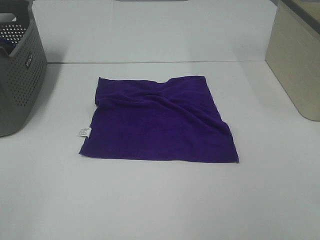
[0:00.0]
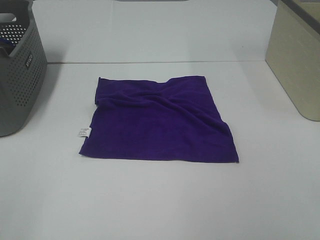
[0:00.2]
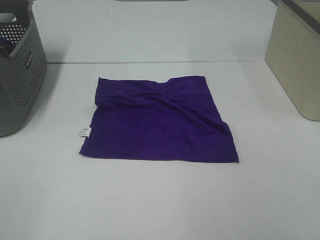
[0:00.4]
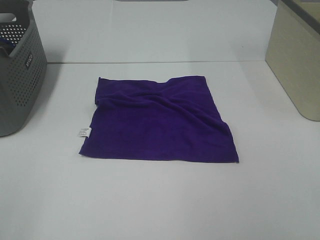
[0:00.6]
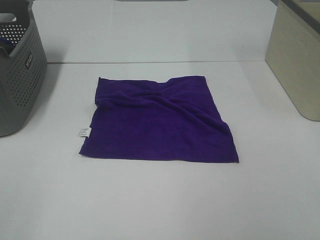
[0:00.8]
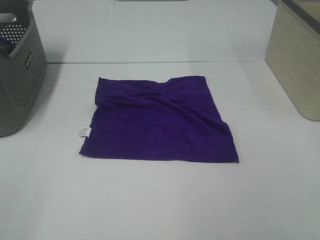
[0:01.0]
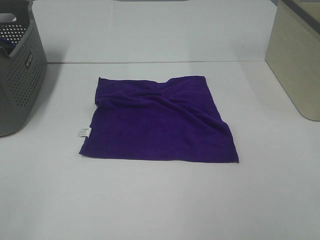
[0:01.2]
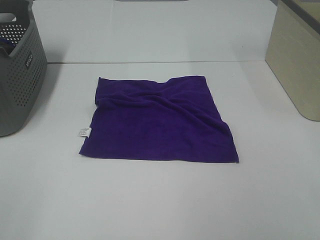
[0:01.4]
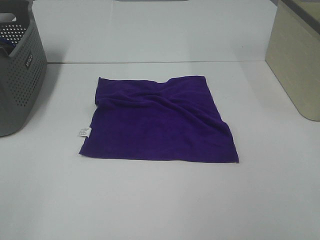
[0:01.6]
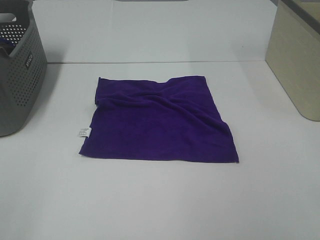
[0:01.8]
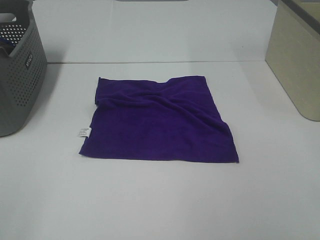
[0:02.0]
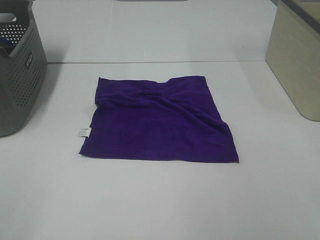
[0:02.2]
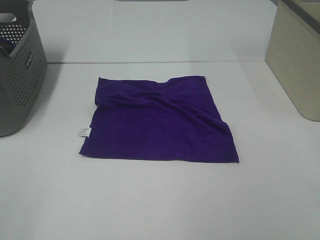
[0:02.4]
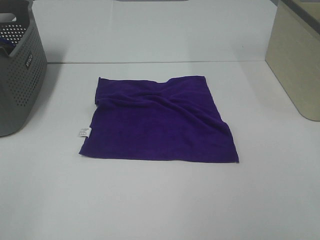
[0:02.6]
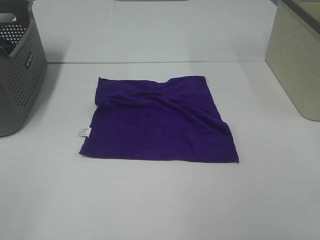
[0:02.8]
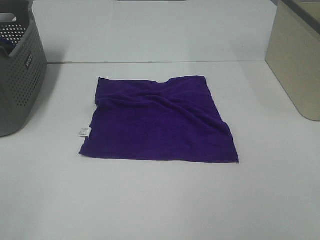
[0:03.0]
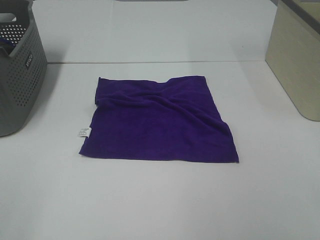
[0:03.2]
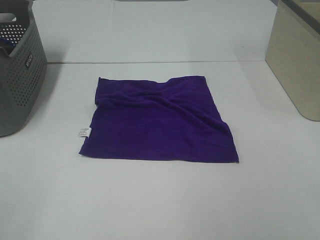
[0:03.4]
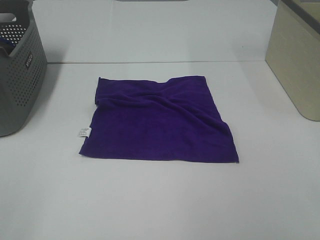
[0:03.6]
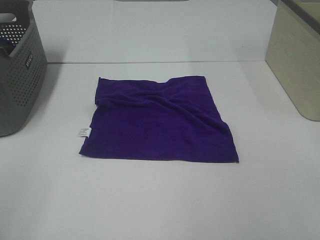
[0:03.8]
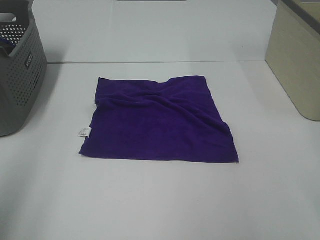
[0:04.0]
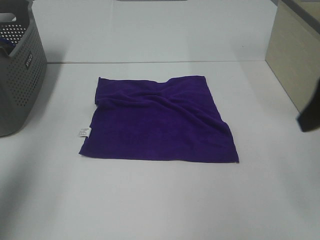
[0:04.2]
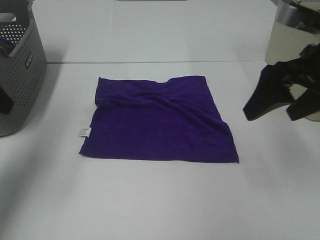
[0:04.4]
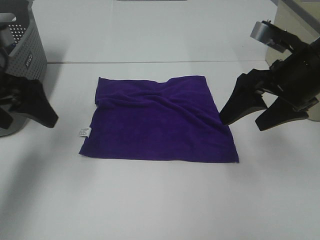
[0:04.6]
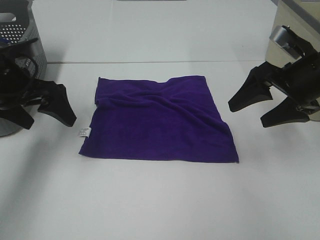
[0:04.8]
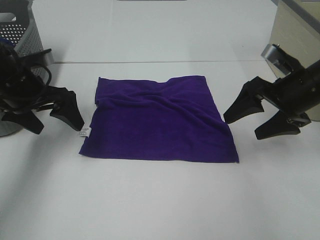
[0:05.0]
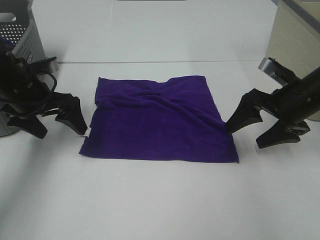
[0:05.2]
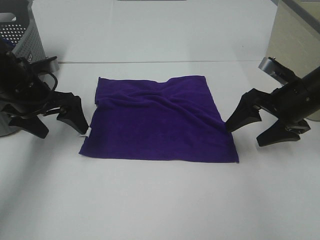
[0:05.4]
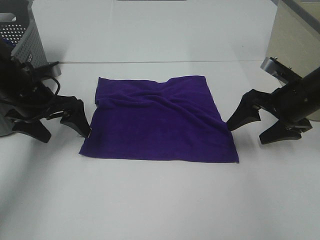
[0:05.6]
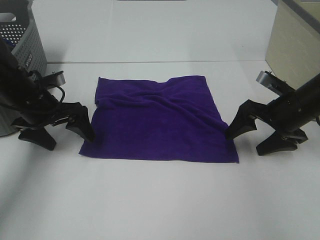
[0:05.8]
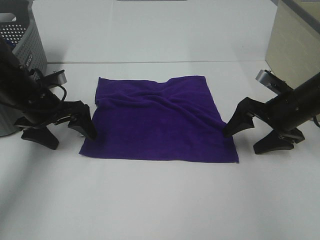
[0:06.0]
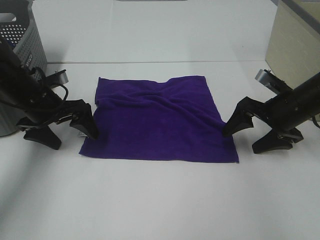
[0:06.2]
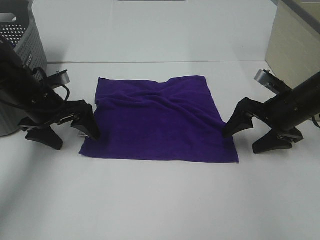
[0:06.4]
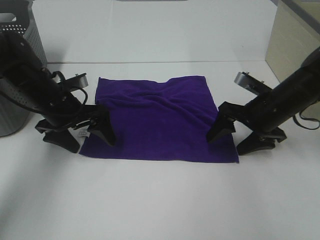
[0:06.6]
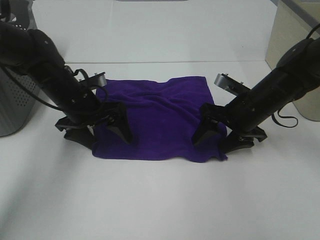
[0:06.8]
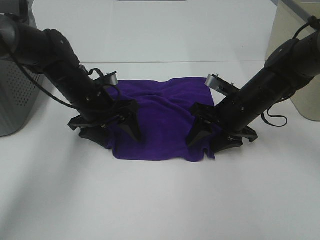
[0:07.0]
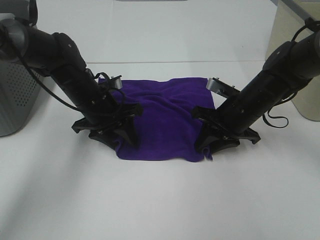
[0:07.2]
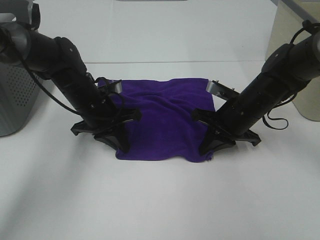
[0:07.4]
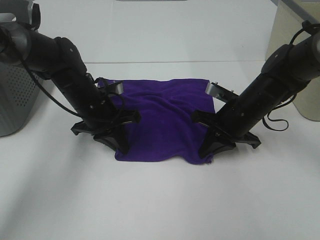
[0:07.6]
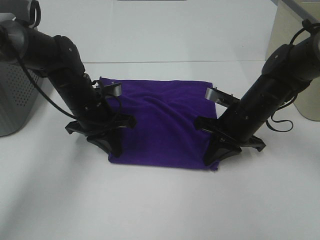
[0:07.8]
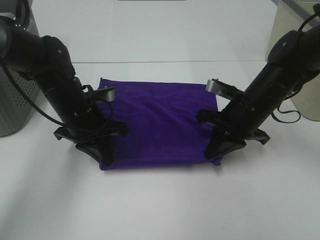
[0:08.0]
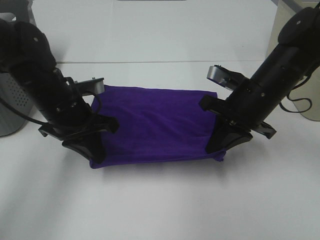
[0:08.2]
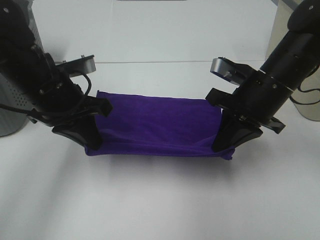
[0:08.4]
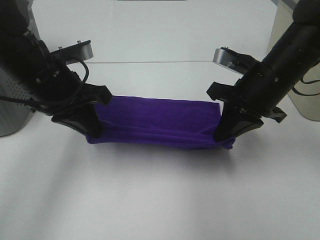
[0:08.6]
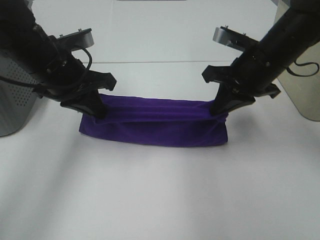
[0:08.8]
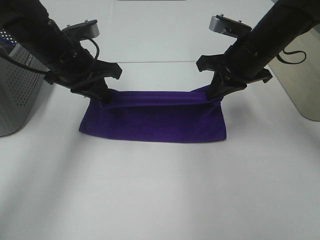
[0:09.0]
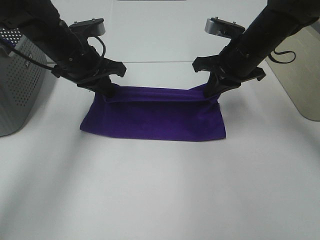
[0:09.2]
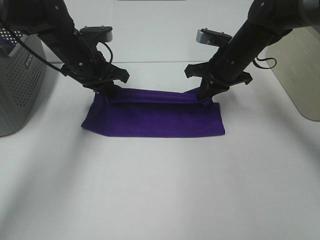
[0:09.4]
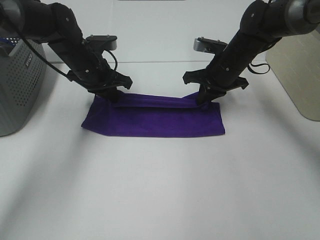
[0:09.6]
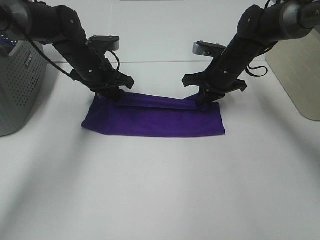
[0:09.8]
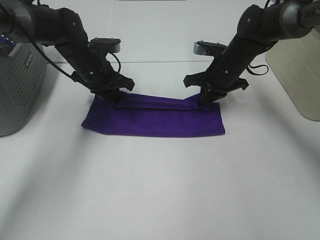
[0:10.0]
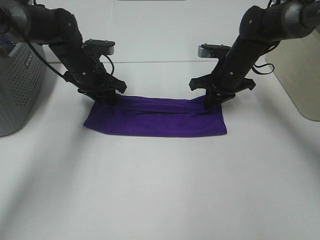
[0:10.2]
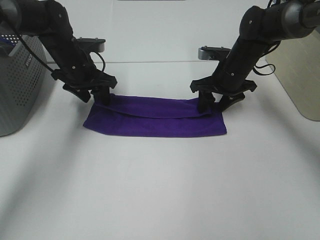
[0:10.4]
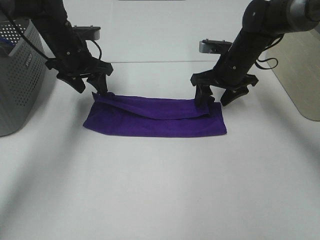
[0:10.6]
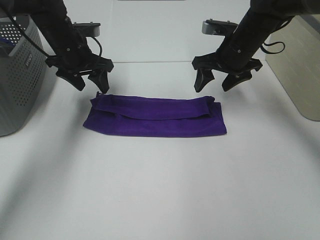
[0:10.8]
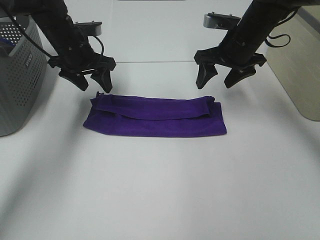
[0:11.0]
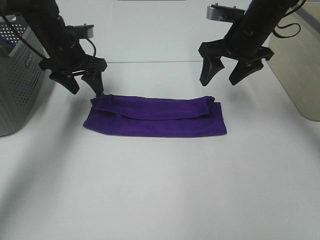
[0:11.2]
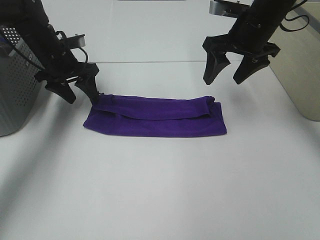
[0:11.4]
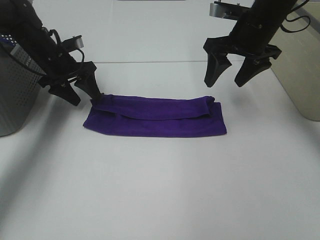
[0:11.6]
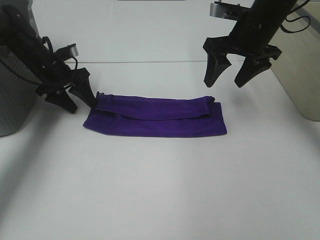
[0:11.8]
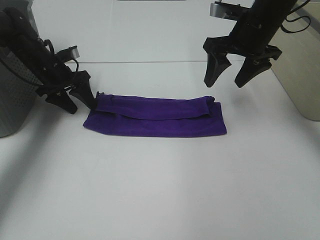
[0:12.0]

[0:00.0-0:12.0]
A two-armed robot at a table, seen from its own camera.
Task of the whole recording: Fold towels.
Step, 0:00.0 to 0:07.4: Left hand: grab the bottom left corner of purple towel.
Step, 0:00.0 to 0:07.4: Right hand: grab the bottom right corner of purple towel.
Step, 0:07.6 to 0:10.2: Left hand: fold the purple towel up.
Step, 0:07.6 to 0:10.2: Right hand: fold the purple towel up.
0:00.0 to 0:03.0: Neither gripper changes place.
0:03.0 to 0:04.4: Both grippers travel together forward, approximately 25 cm.
0:04.4 to 0:06.0: The grippers both shift downward and forward by roughly 20 cm.
0:06.0 to 0:07.6: The right gripper is displaced to the left by roughly 10 cm, and closes, while the left gripper goes about 10 cm to the right, and closes its fingers.
0:07.6 to 0:09.0: The grippers both shift upward by approximately 10 cm.
0:09.0 to 0:10.4: The left gripper shifts some 10 cm forward and downward, and opens up. Meanwhile the right gripper moves downward and forward, roughly 10 cm, and opens its fingers.
0:10.4 to 0:12.0: The right gripper travels upward by approximately 10 cm; the left gripper shifts about 5 cm to the left.

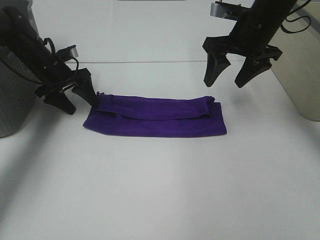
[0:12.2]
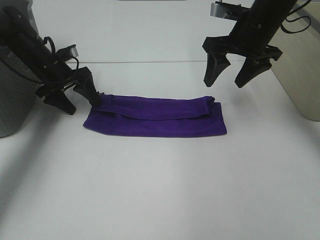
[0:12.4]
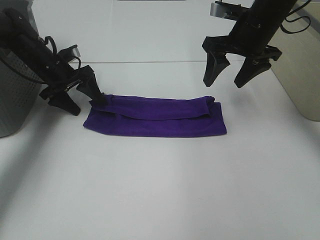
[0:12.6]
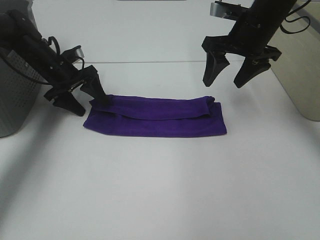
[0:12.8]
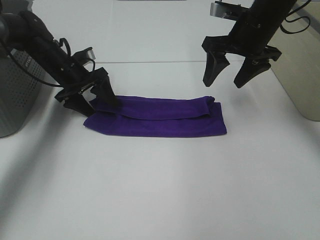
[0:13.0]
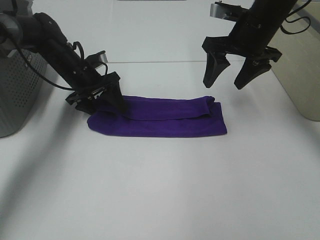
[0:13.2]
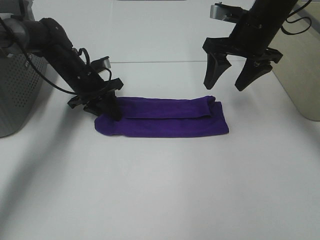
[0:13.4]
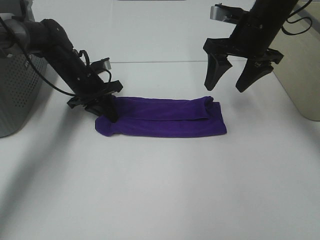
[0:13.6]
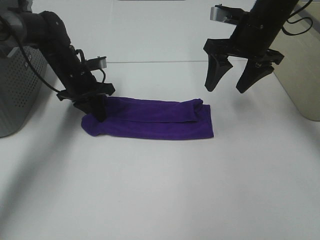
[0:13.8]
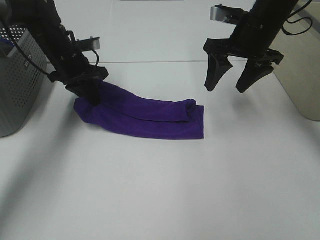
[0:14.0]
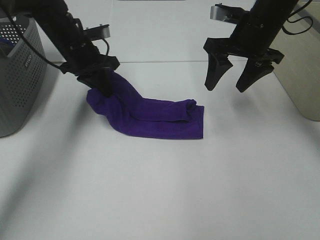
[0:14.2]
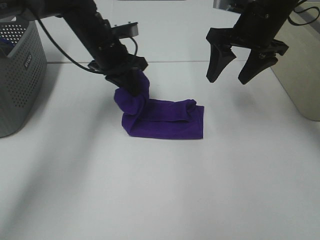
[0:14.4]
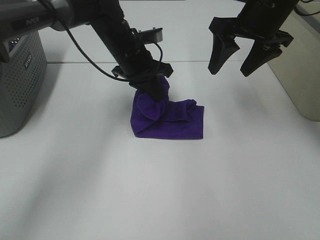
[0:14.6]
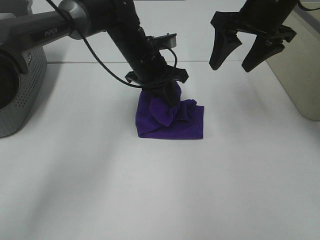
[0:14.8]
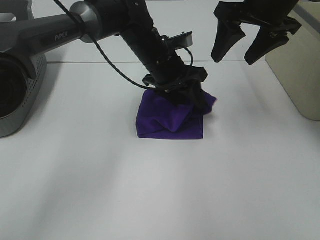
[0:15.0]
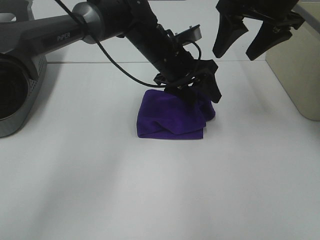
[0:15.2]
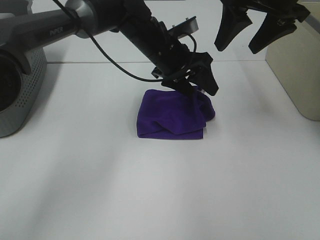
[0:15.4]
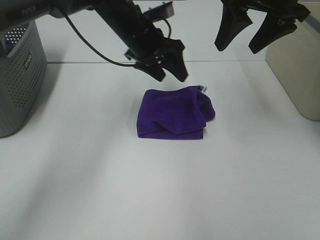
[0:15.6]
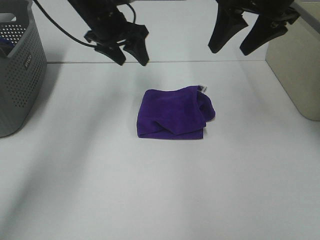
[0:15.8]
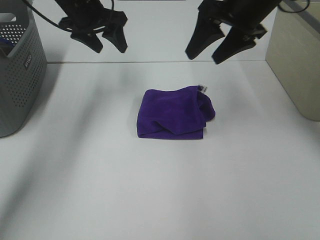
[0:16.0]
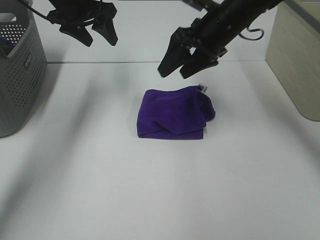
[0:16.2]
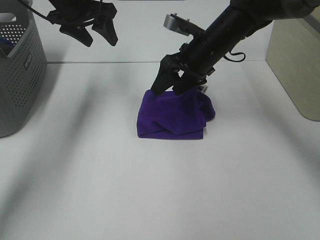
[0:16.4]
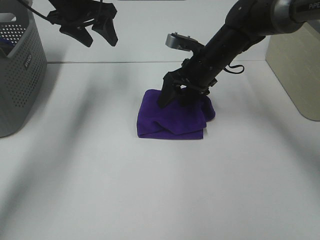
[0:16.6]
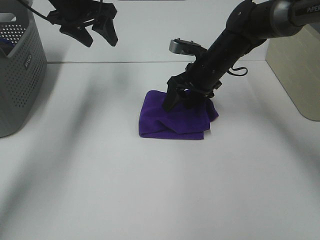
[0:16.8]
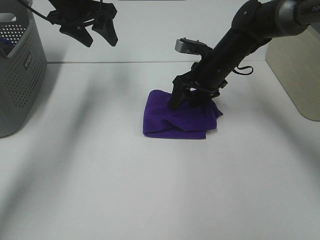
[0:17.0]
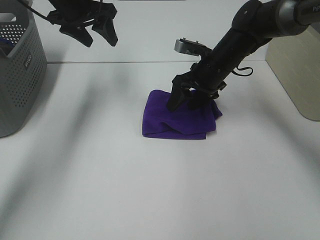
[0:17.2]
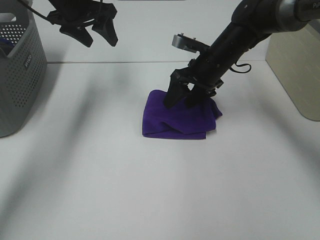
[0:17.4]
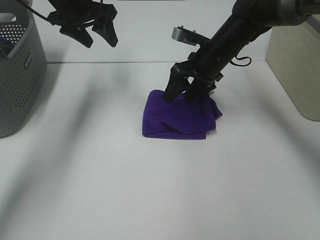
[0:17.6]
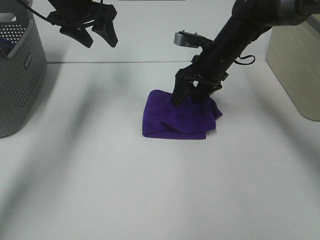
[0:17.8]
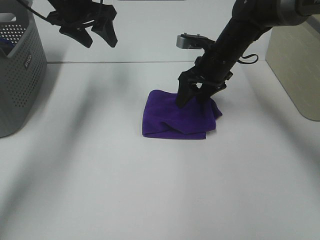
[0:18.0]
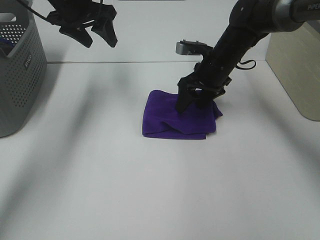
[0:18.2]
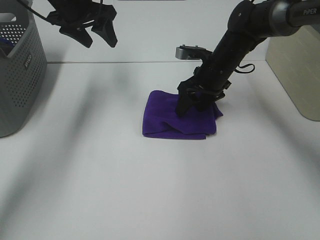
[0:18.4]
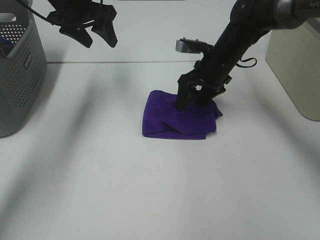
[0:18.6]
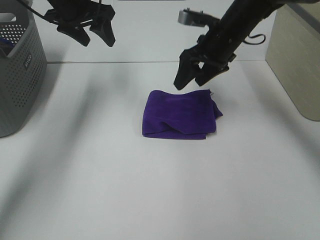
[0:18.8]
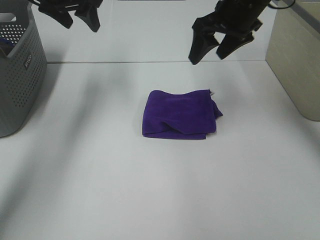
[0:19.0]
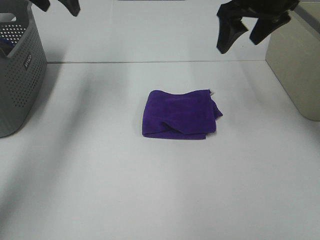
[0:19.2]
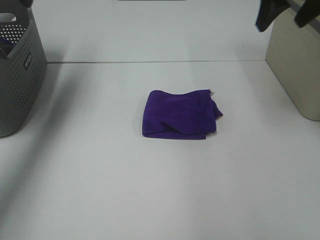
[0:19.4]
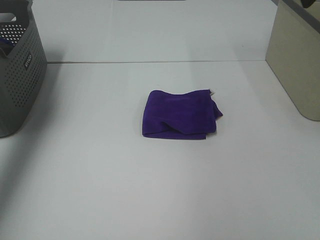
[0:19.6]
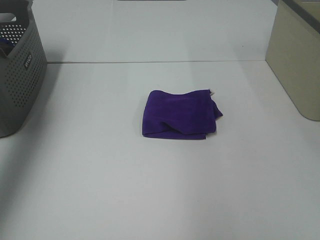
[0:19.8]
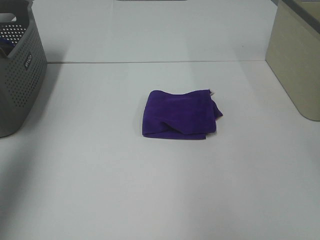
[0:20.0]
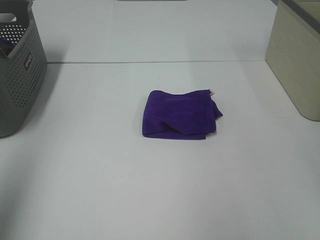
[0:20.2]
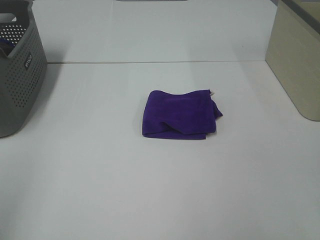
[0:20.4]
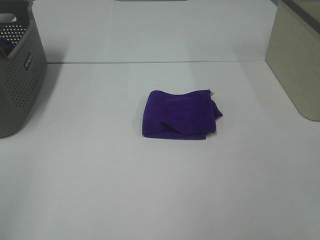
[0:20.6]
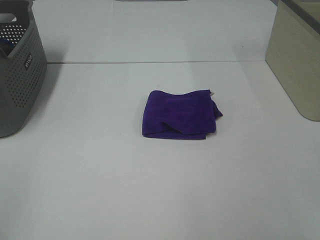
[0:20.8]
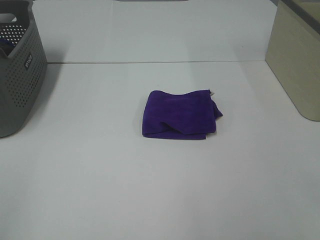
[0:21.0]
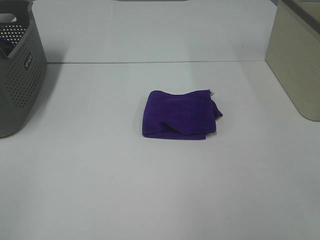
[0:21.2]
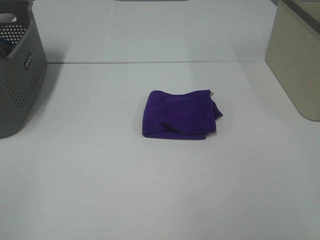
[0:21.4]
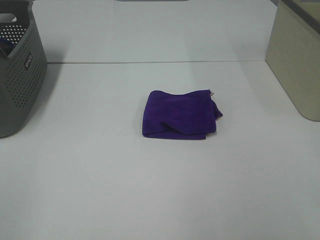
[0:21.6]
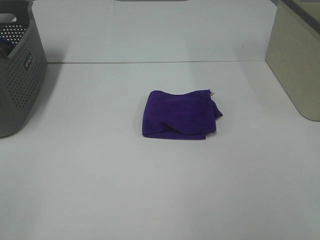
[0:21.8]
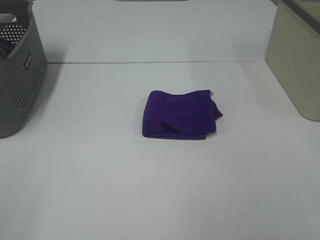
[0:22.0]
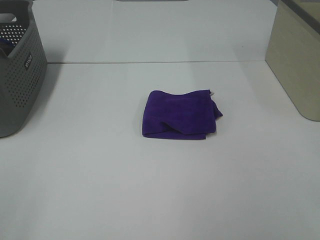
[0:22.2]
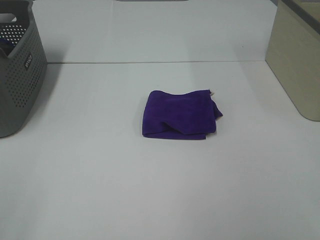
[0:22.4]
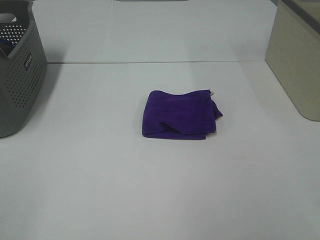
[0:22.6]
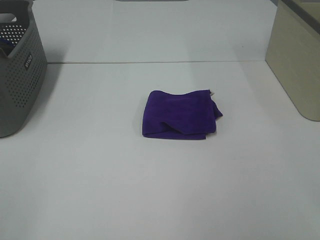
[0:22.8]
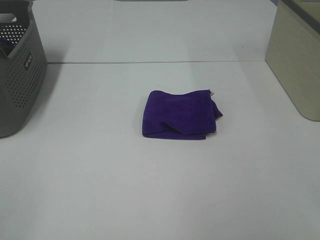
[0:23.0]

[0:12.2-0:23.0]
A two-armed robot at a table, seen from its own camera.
Task of the whole recording: Fold towels.
Step, 0:12.2 to 0:15.0: Left hand: fold the purple towel from left to right.
Step, 0:12.2 to 0:16.8: Right hand: adjust the purple towel.
0:12.2 to 0:13.8: The left gripper shifts some 5 cm to the right, and closes up.
0:13.8 to 0:15.2: The left gripper heads to the right, covering approximately 20 cm, and opens, while the right gripper goes about 10 cm upward.
0:15.2 to 0:16.8: The right gripper moves downward, some 20 cm; the left gripper travels to the left and upward by some 20 cm.
0:16.8 to 0:18.4: The grippers move only a little.
0:18.4 to 0:20.0: The right gripper goes some 40 cm upward, backward and to the right. Meanwhile the left gripper moves backward, to the left and upward, about 35 cm.
0:20.0 to 0:21.4: The left gripper shifts some 25 cm backward and downward.
0:21.4 to 0:23.0: Both grippers stay about where they are.
